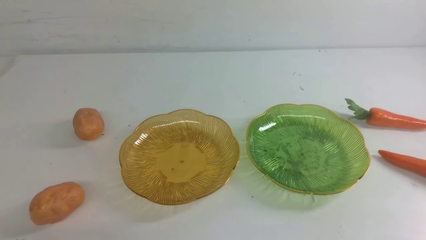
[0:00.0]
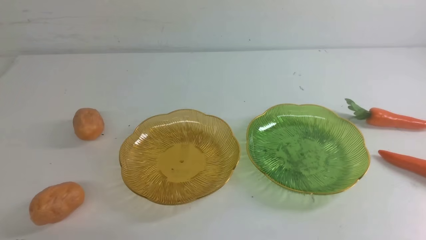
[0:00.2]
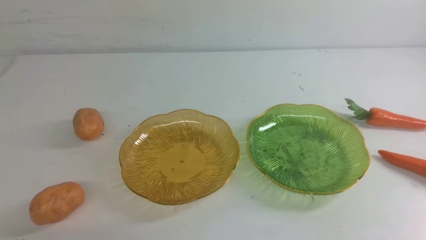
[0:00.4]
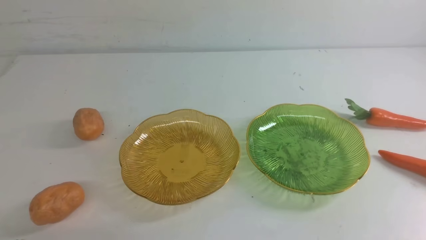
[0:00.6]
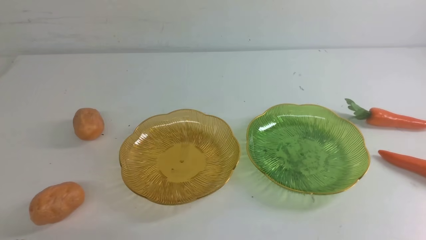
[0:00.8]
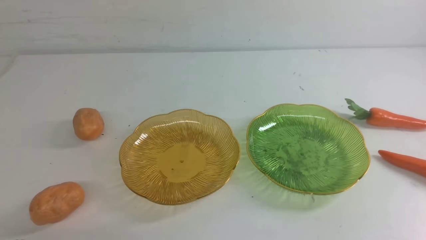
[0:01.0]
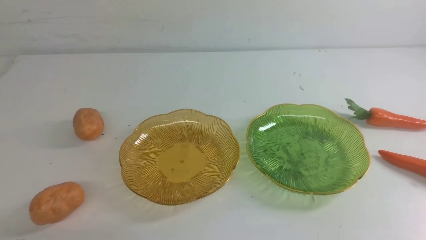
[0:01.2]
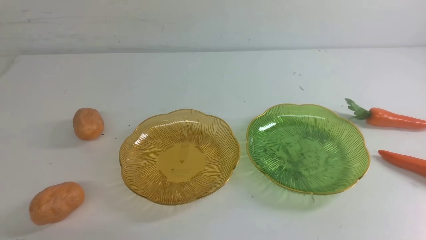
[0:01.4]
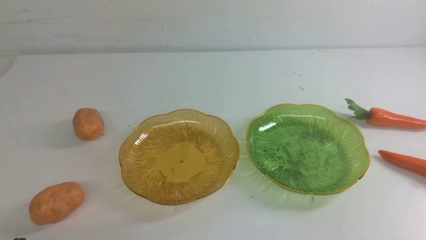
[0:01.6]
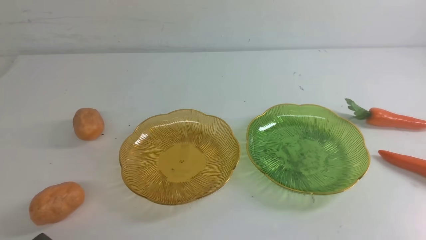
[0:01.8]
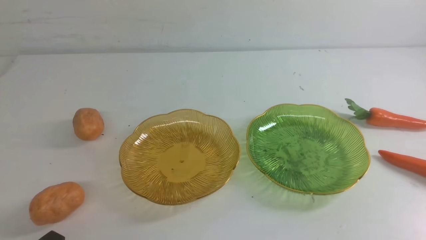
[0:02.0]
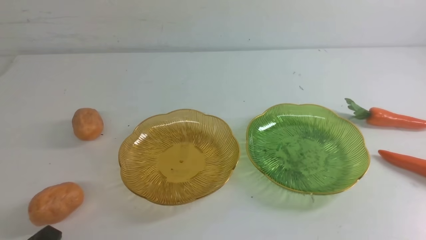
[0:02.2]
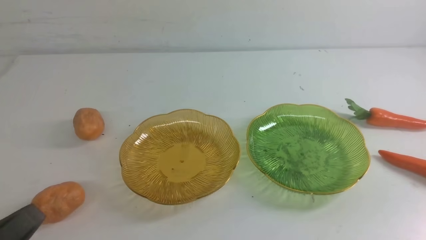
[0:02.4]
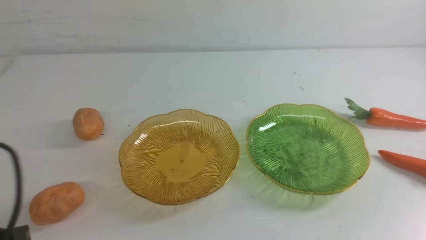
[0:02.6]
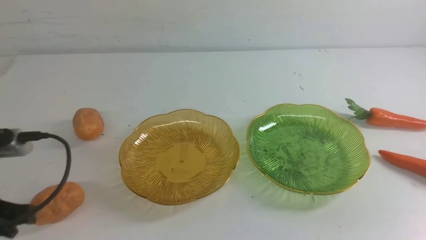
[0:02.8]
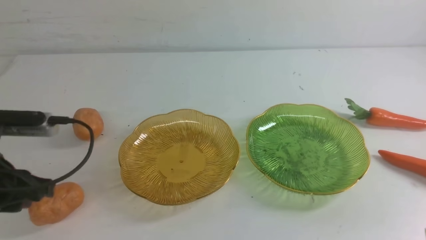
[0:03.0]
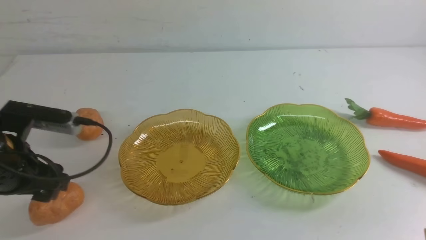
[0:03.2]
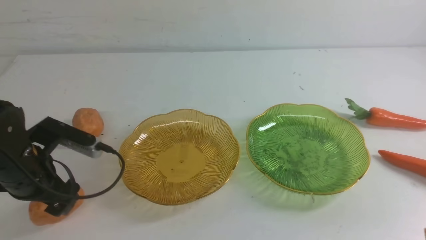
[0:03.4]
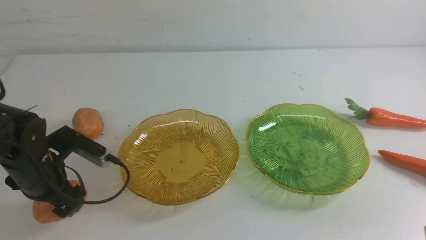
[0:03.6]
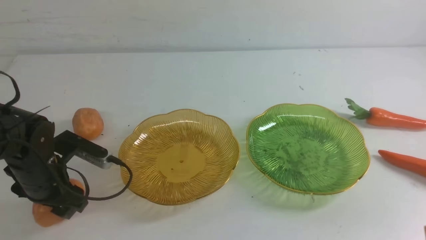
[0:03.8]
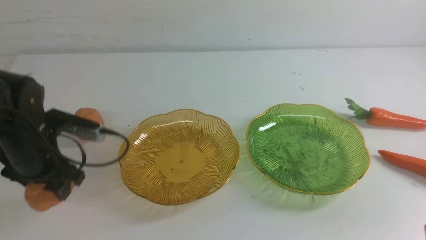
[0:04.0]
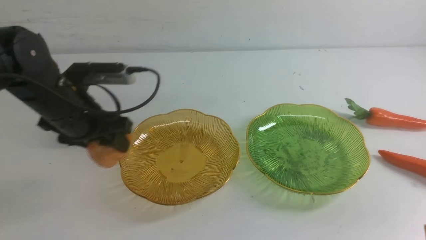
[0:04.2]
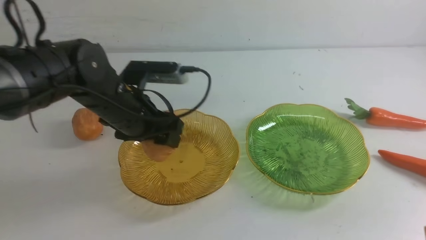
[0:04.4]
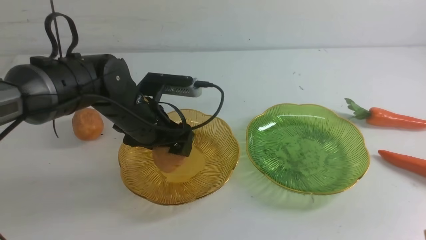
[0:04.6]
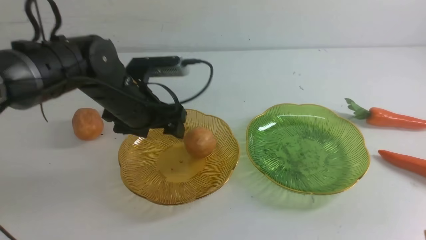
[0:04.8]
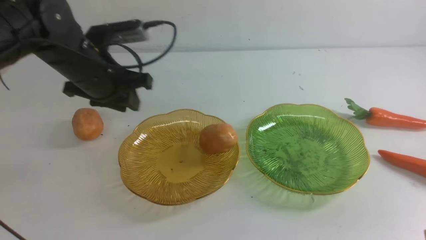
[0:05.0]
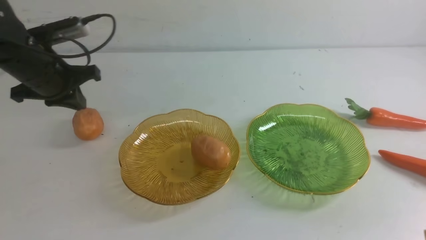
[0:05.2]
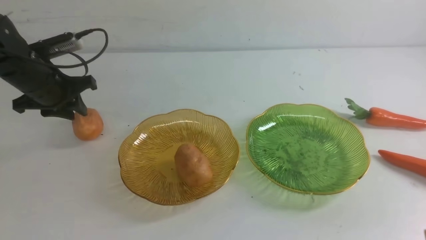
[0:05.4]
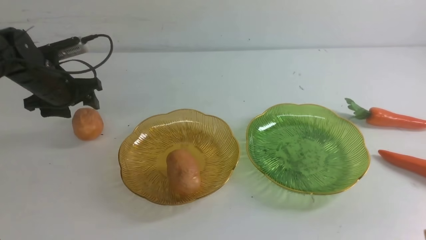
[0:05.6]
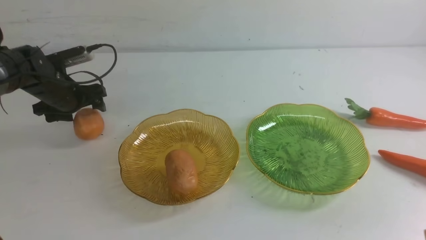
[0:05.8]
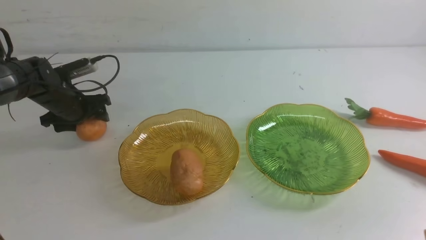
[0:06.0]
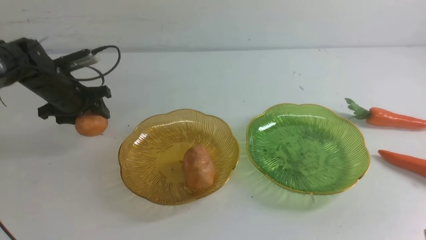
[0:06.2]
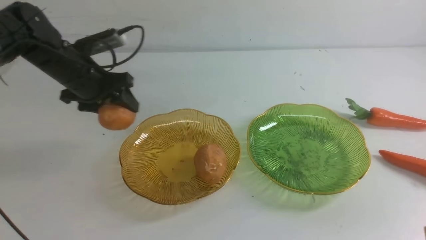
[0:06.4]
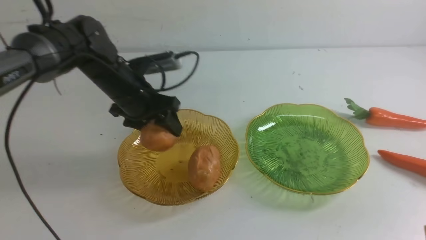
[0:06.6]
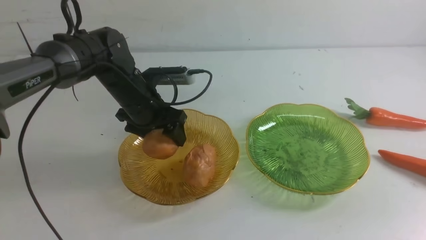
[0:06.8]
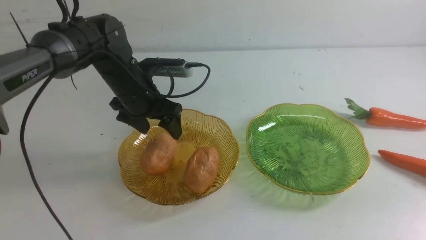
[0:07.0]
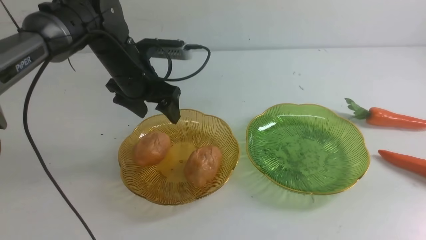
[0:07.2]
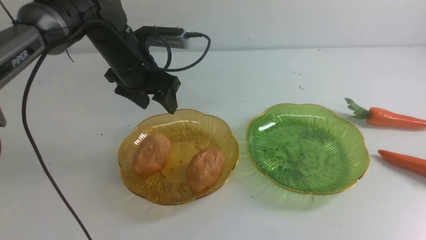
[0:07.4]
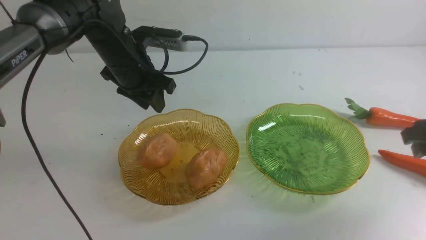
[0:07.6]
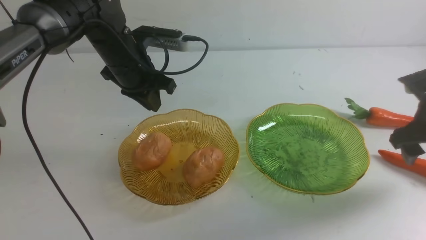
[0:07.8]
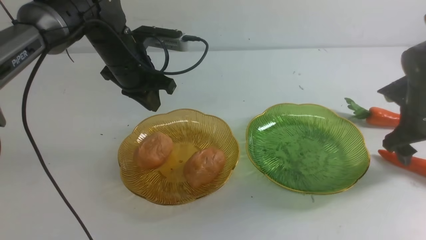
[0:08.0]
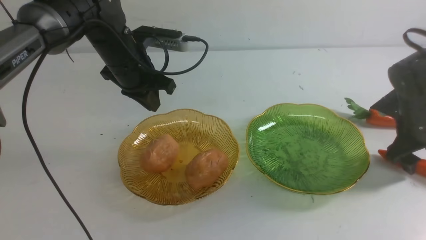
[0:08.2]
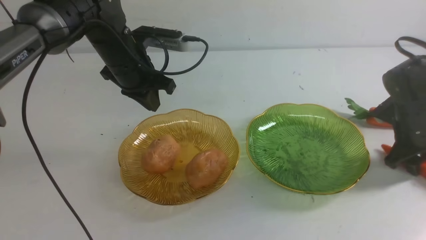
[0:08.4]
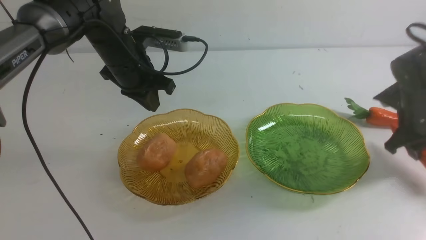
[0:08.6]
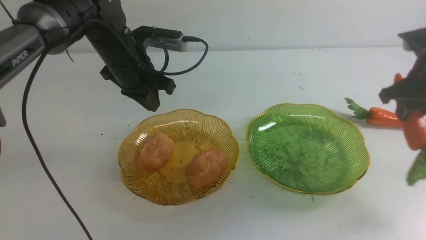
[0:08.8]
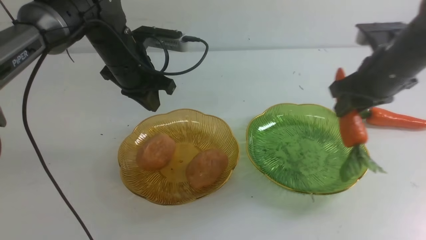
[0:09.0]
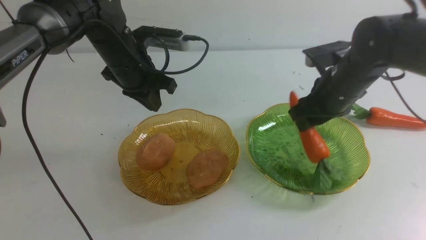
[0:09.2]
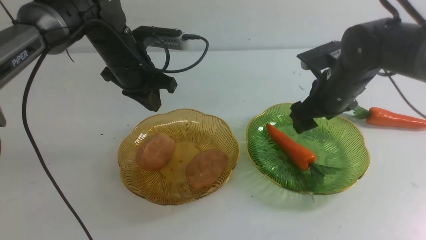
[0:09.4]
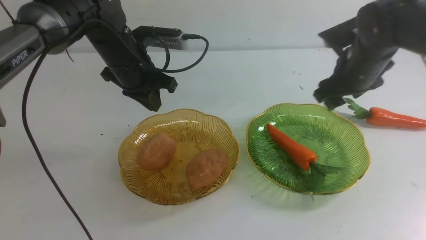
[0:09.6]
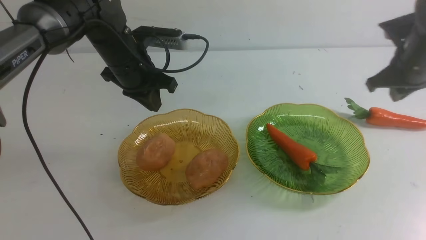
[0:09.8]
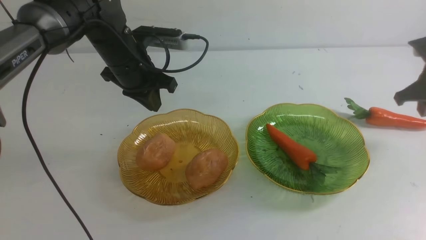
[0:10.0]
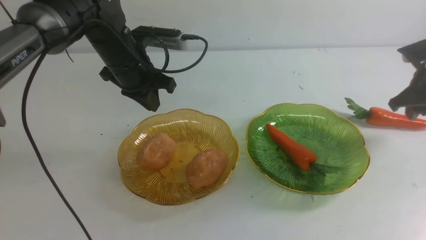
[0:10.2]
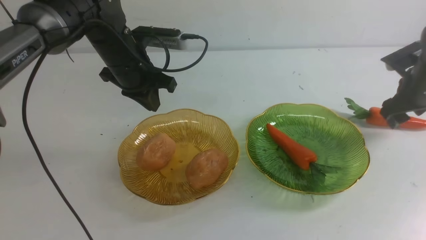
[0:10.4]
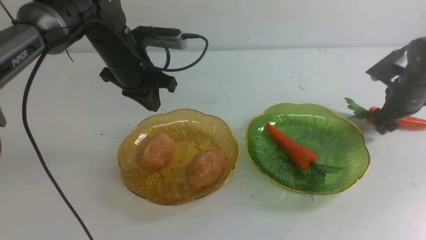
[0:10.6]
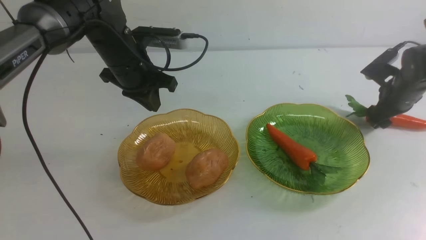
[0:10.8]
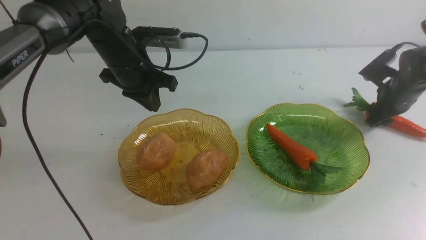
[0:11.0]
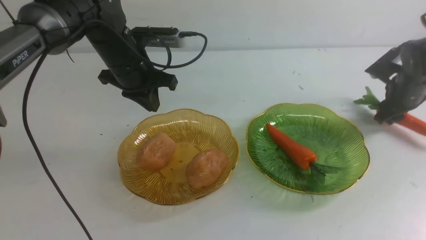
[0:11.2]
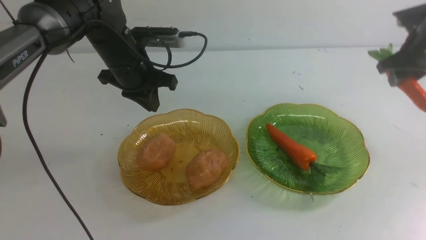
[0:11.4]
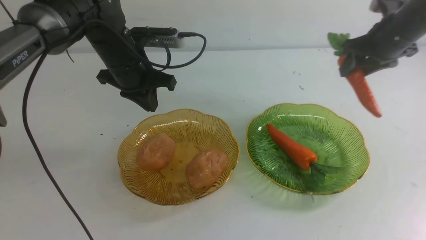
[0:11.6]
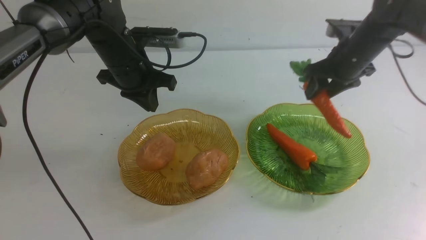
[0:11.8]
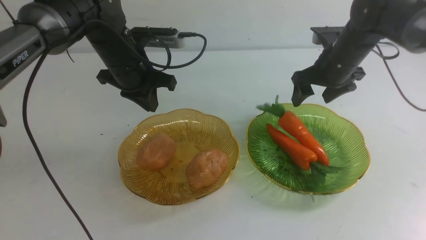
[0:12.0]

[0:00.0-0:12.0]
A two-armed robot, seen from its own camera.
Step, 0:00.0 to 0:07.2: Grab a potato with your left arm and put it on the left plate.
0:01.6 to 0:03.0: The left gripper heads forward and upward, covering approximately 20 cm, and opens its fingers.
0:03.0 to 0:04.4: The left gripper goes roughly 20 cm to the right and forward.
0:04.4 to 0:06.0: The left gripper travels to the left and forward by some 20 cm, and closes, then opens again.
0:06.0 to 0:07.6: The right gripper shifts some 25 cm forward, and opens up; the left gripper moves to the right and upward, roughly 20 cm, and closes.
0:07.6 to 0:09.0: The right gripper shifts roughly 10 cm to the left, and closes.
0:09.0 to 0:10.4: The right gripper goes about 15 cm to the right, downward and forward, and opens.
0:10.4 to 0:12.0: The right gripper goes about 15 cm to the left and upward.

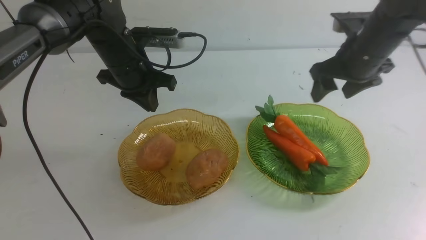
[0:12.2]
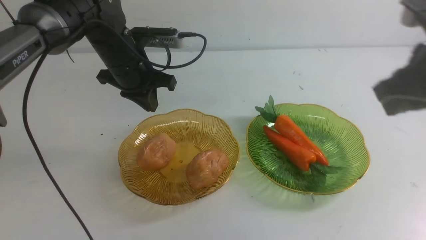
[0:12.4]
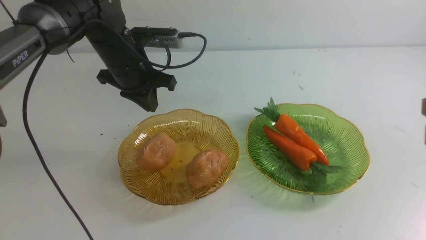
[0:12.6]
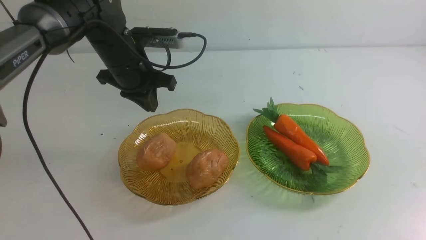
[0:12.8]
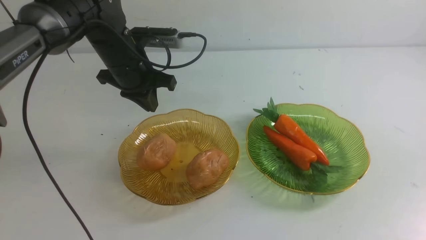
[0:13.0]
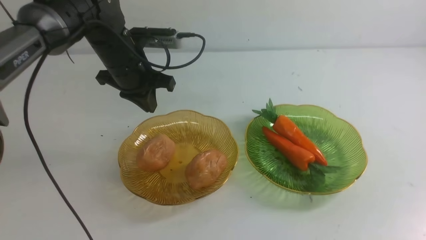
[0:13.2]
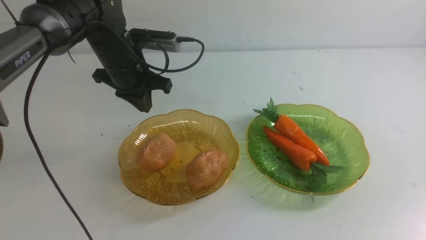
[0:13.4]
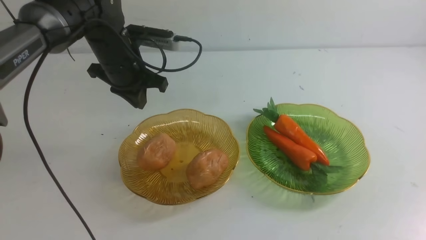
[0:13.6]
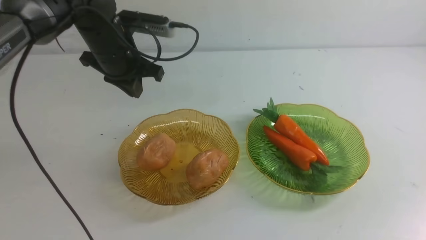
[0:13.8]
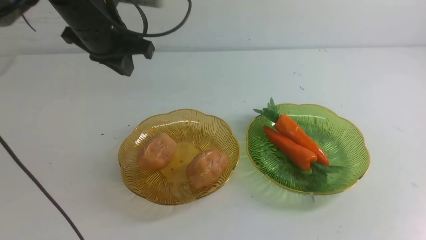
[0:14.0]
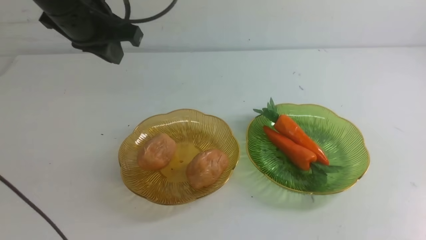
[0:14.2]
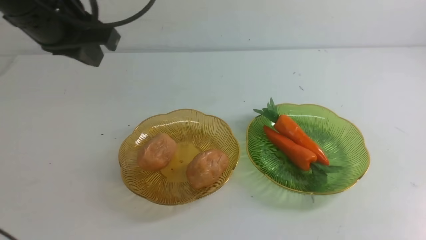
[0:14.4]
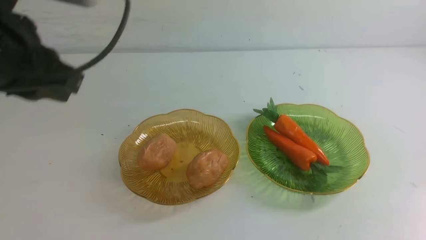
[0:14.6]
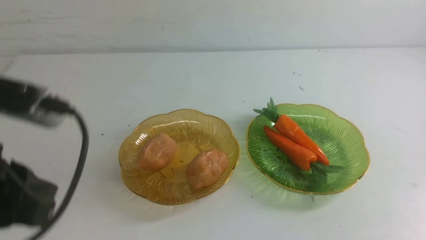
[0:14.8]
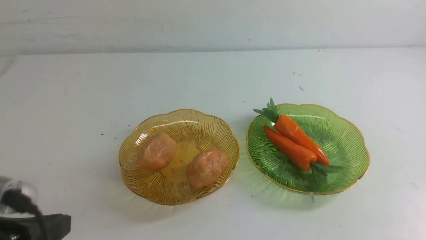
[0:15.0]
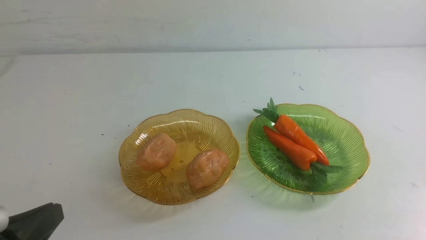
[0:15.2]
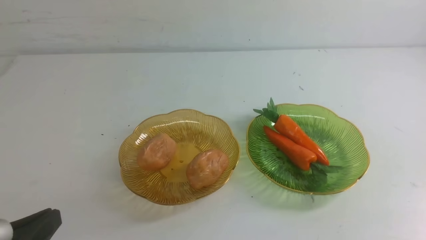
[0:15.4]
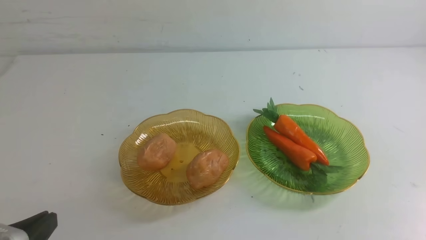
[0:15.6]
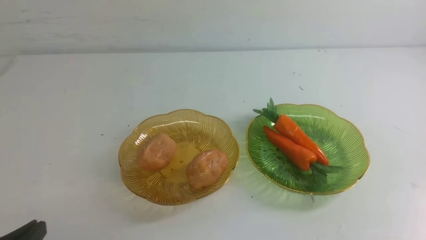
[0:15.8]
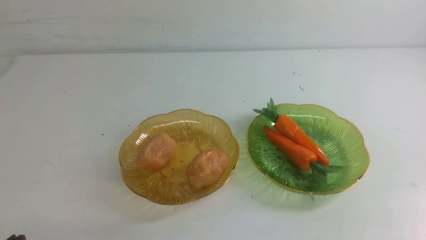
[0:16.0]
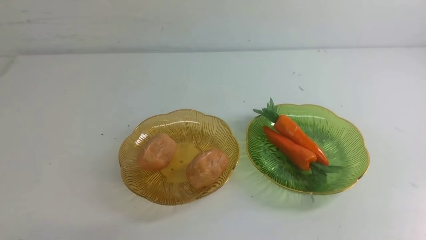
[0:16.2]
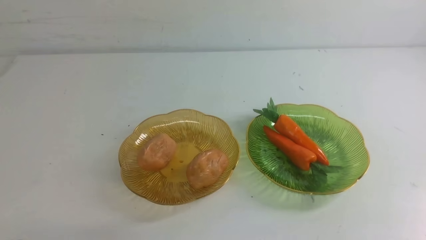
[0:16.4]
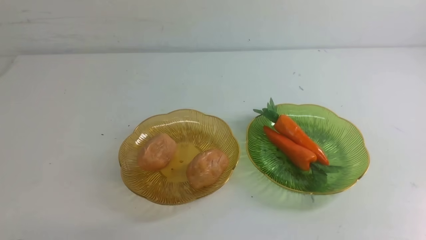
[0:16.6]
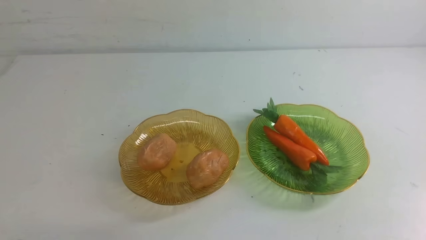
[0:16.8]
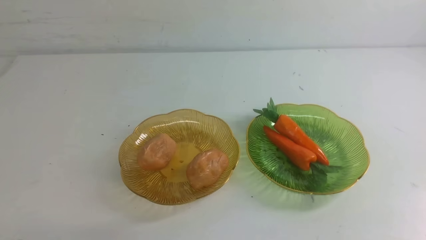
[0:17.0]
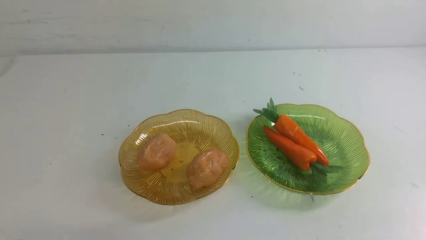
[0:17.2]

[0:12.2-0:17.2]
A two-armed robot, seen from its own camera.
0:12.2 to 0:13.8: The right gripper goes approximately 30 cm backward, and closes its fingers.
0:13.8 to 0:15.6: The left gripper travels backward by about 35 cm. The right gripper travels downward by roughly 10 cm.
0:15.6 to 0:17.2: The left gripper is displaced downward by some 5 cm.
